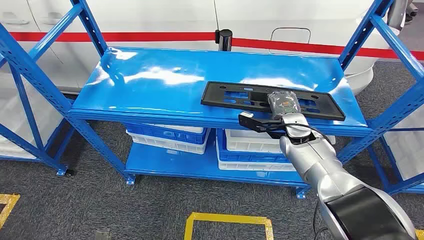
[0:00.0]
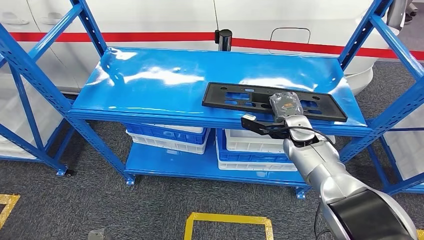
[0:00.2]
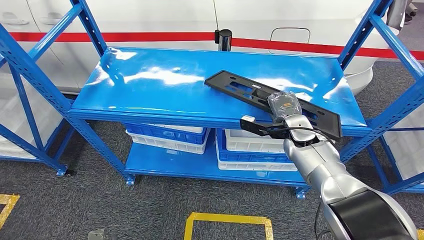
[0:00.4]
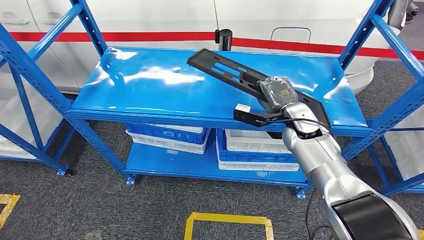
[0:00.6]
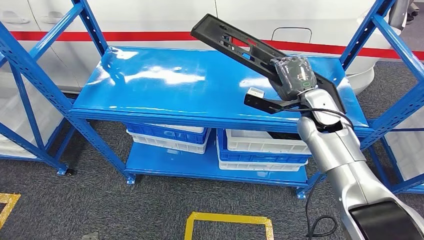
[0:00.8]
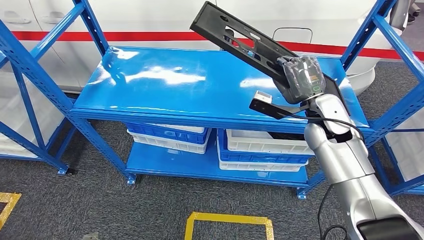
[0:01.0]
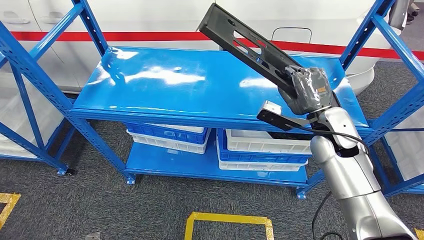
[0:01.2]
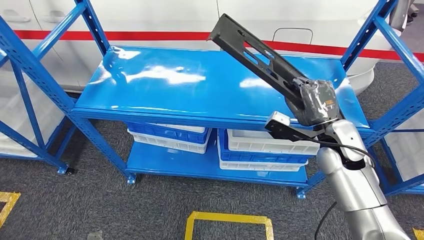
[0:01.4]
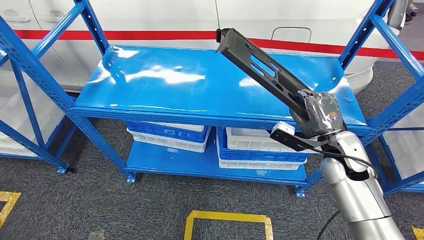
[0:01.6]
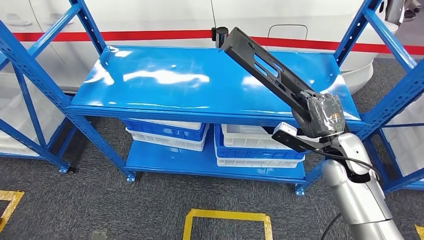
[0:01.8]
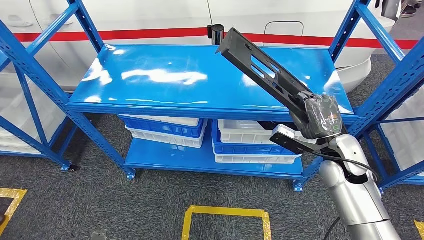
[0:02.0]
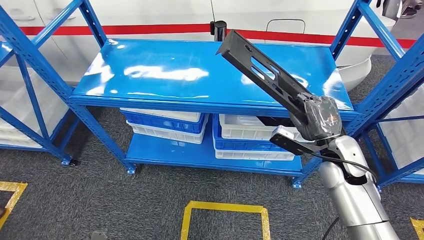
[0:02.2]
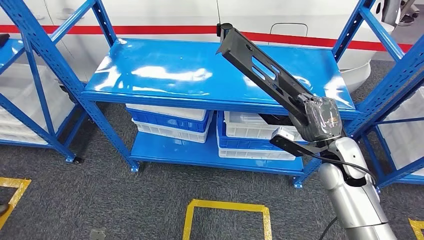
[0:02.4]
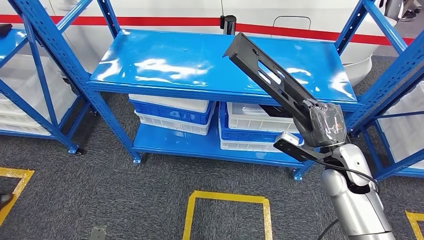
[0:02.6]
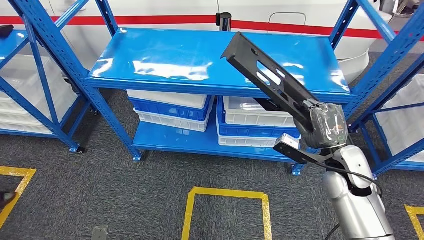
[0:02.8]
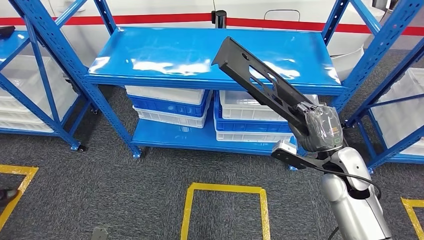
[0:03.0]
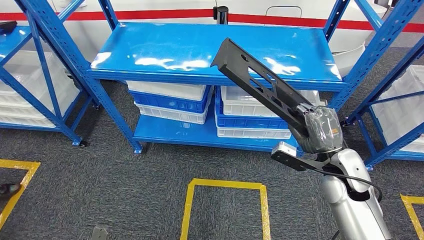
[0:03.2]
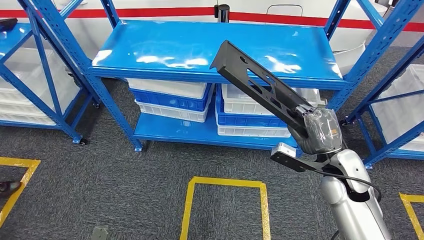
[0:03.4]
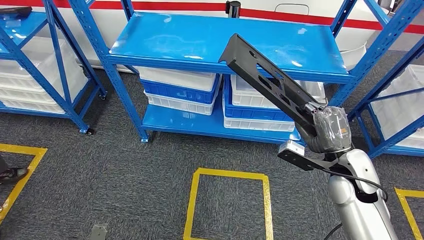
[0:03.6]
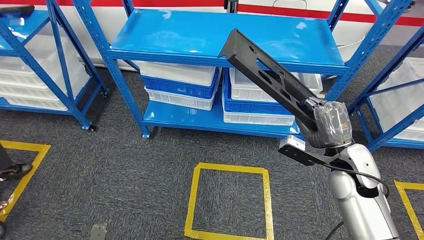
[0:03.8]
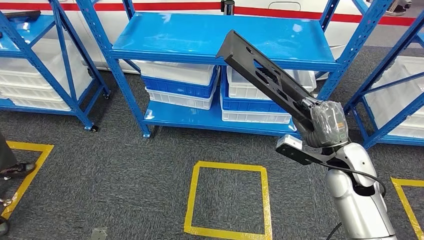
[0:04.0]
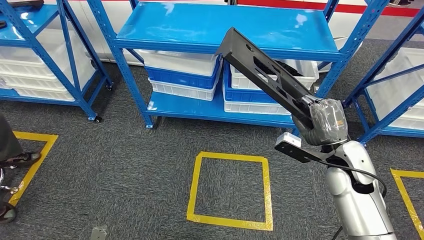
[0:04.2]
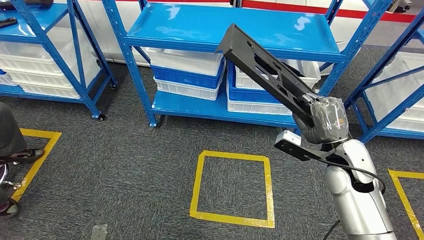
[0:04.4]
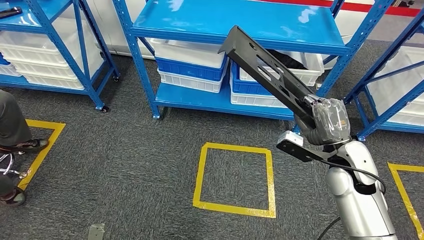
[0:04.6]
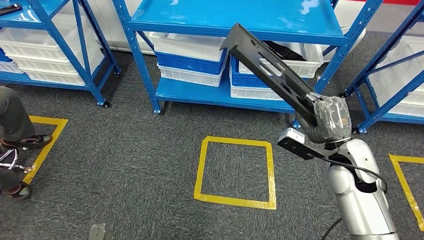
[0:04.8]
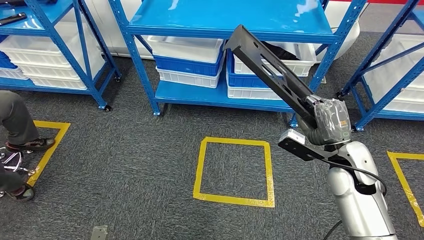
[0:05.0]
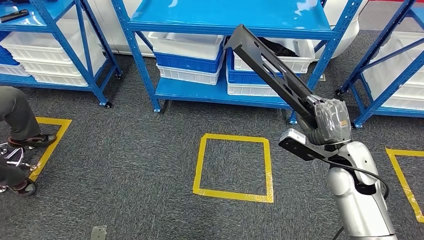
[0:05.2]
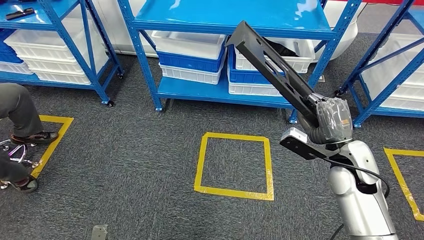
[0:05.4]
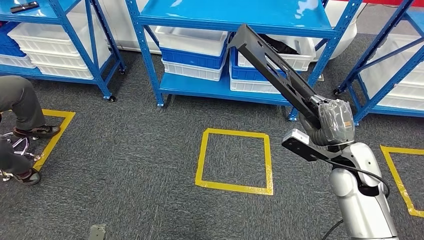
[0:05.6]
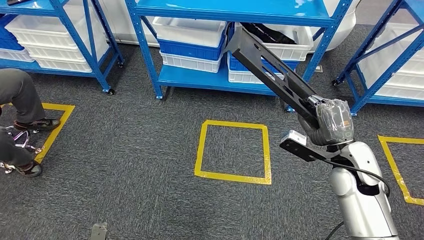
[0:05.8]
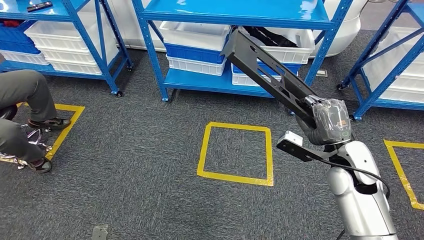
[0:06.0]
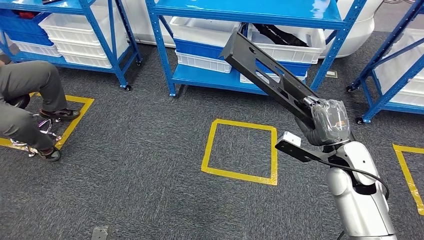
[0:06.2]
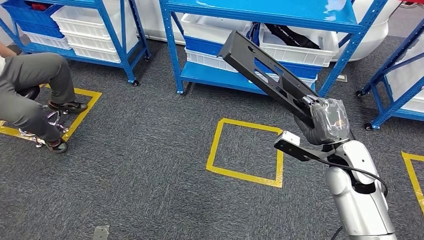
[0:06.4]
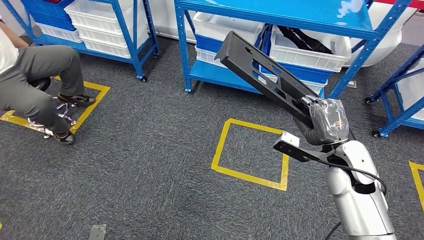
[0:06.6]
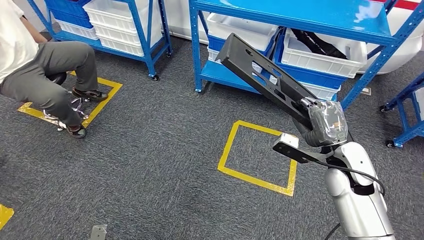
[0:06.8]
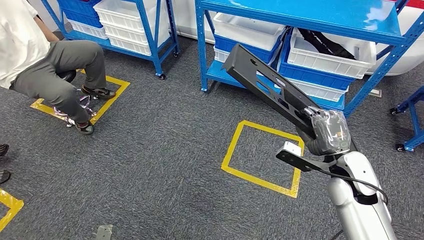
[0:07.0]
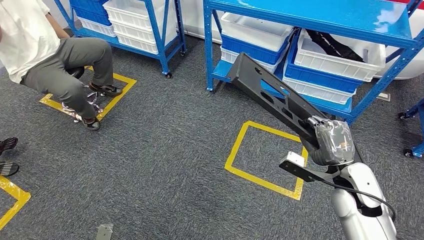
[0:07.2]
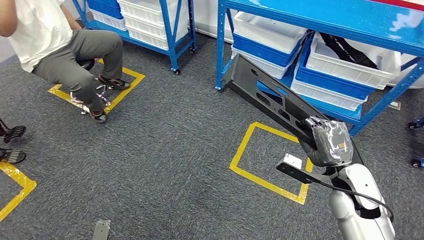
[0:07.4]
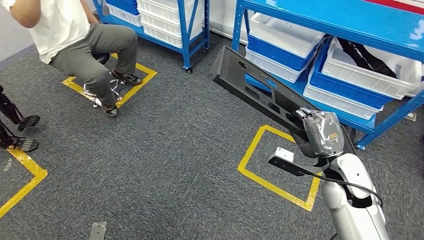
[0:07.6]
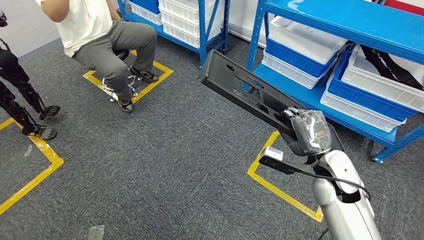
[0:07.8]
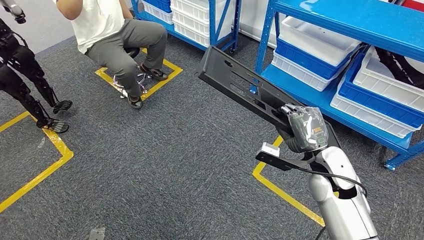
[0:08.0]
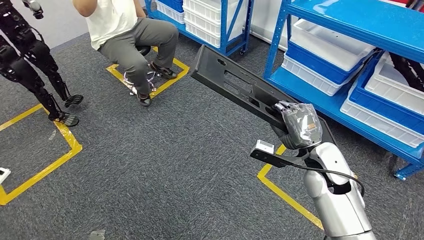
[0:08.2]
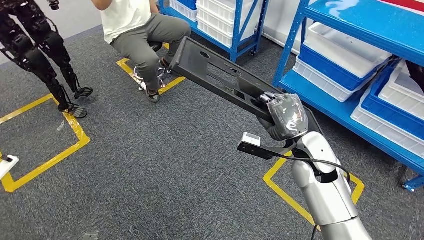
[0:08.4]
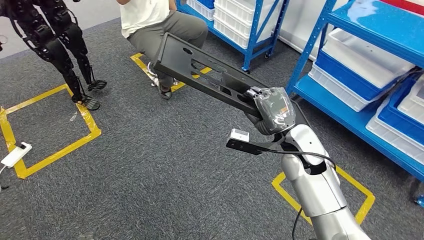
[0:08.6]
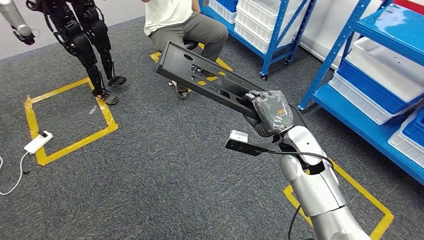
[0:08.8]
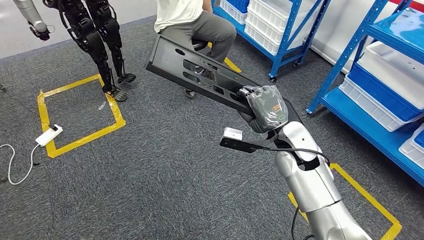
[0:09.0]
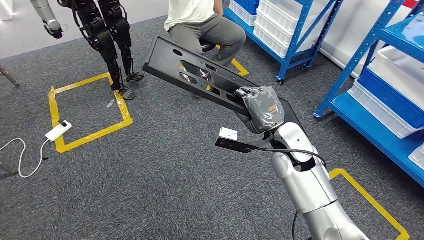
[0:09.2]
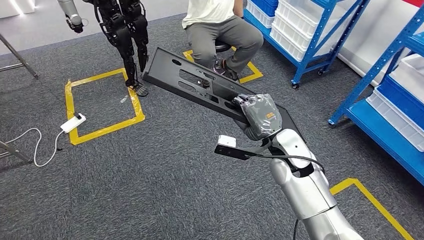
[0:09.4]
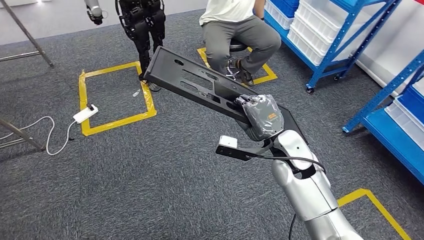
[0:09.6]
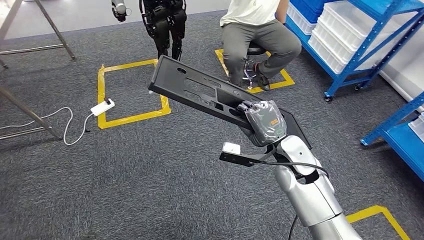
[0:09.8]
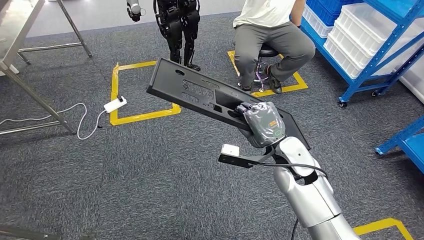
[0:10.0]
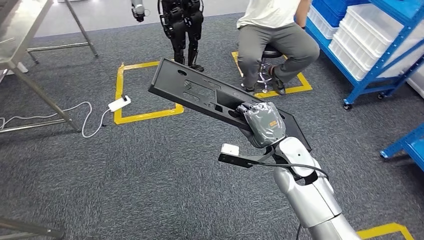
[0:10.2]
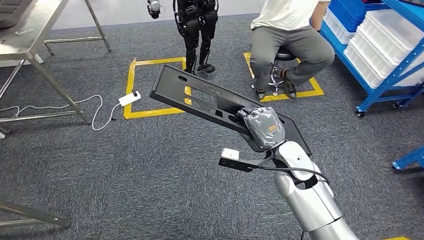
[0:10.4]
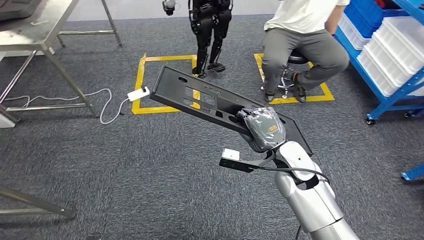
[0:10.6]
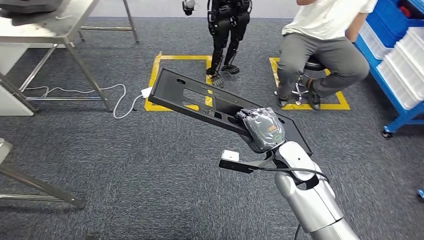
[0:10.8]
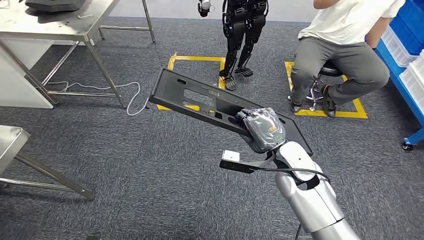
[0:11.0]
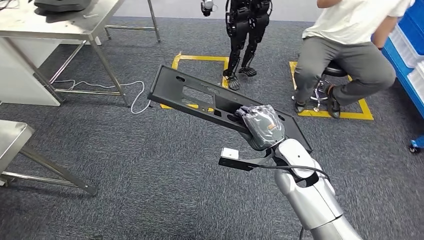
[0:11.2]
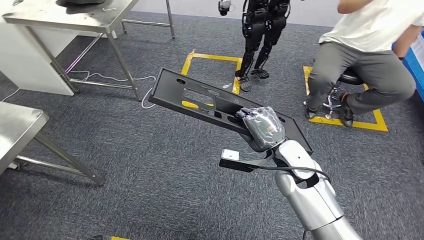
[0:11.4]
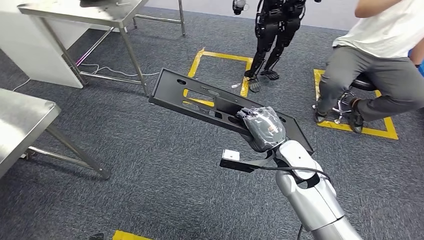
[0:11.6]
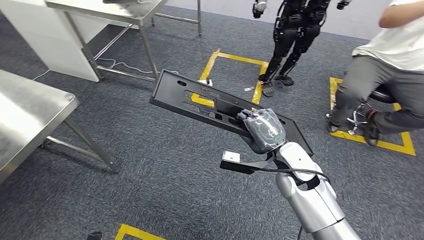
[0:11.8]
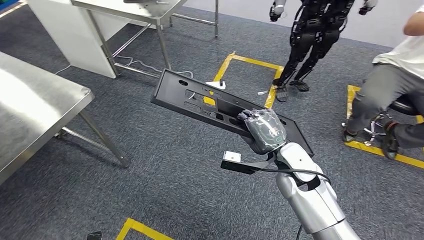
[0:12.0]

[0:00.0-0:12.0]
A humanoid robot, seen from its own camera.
Step, 0:00.0 to 0:05.2: Pick up the large material from the shelf.

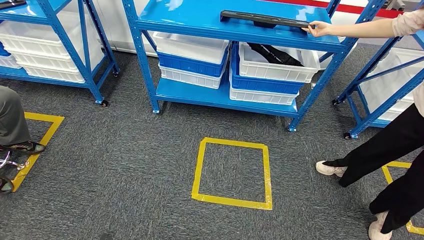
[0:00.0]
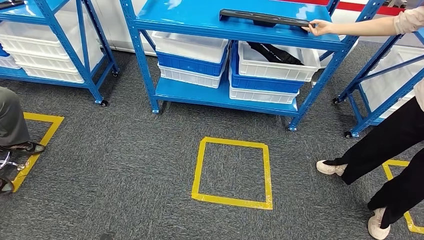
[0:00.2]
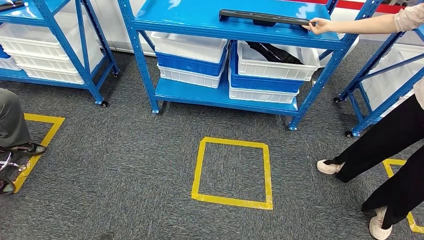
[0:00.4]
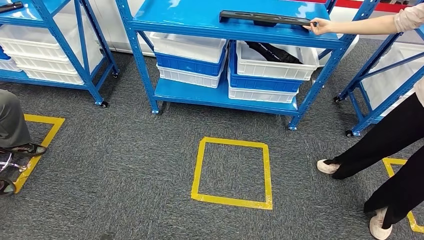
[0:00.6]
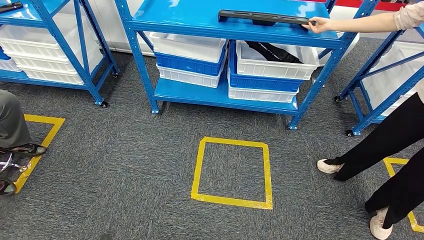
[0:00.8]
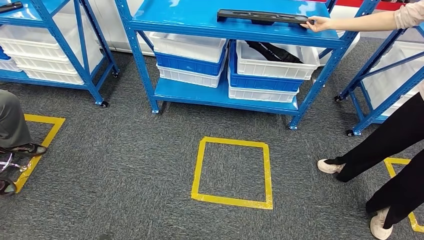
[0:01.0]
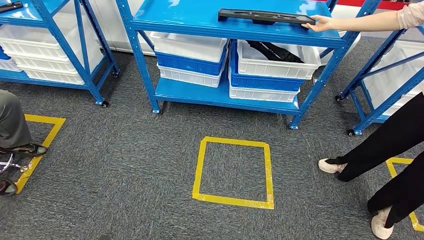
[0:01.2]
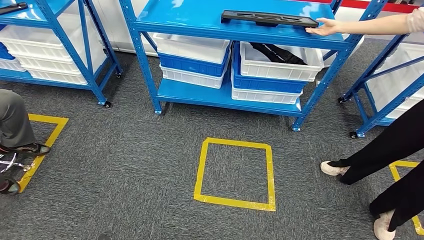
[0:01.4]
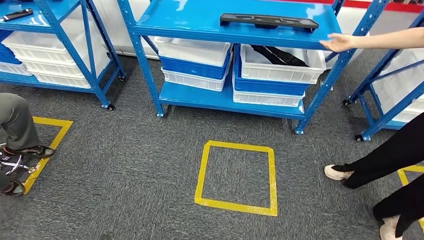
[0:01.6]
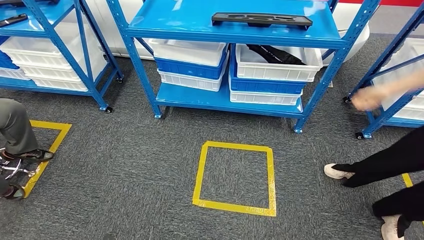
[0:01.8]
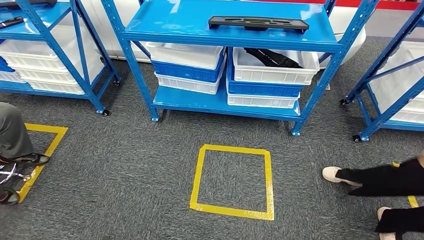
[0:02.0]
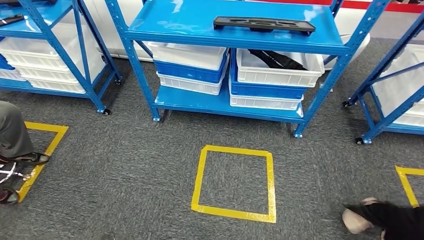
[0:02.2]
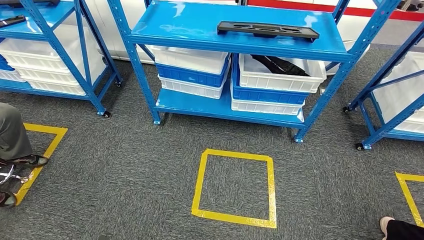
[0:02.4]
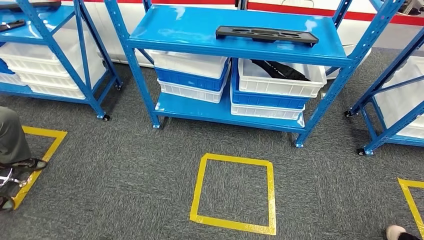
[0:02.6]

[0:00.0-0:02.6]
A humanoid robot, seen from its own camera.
Step, 0:00.0 to 0:02.6: Return to the initial position at the shelf.

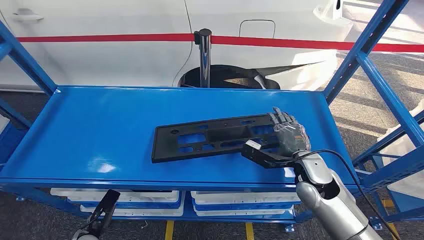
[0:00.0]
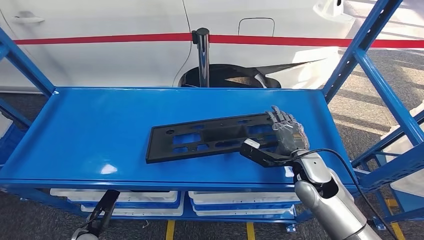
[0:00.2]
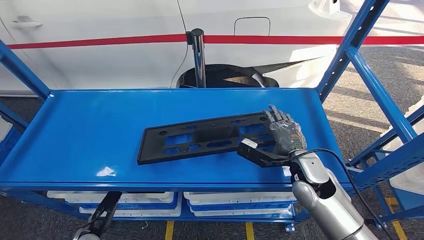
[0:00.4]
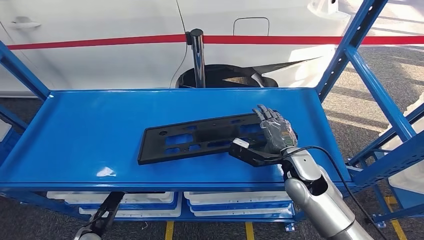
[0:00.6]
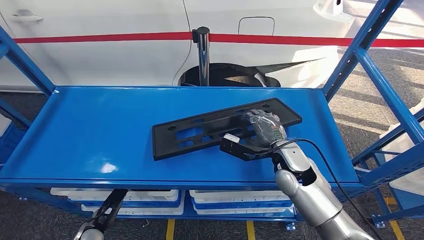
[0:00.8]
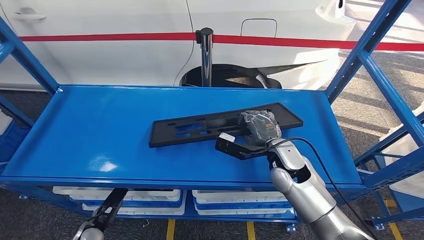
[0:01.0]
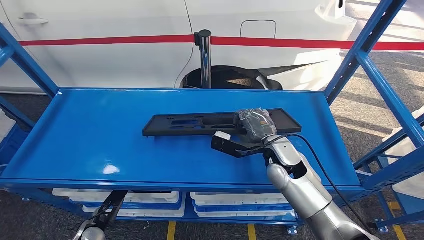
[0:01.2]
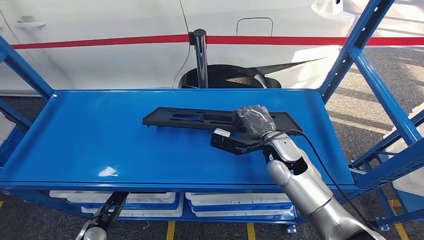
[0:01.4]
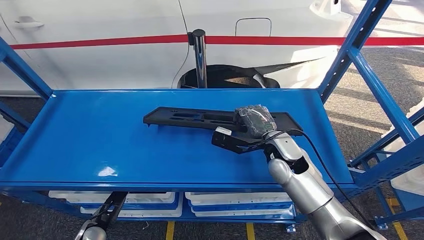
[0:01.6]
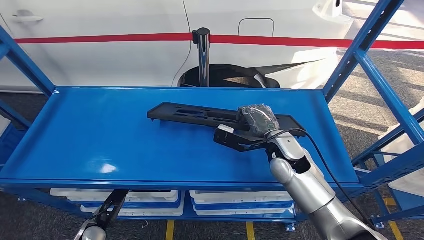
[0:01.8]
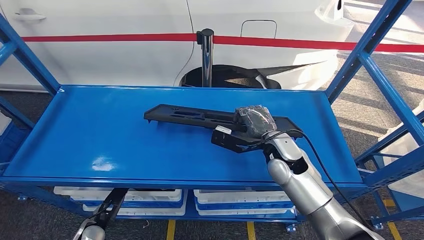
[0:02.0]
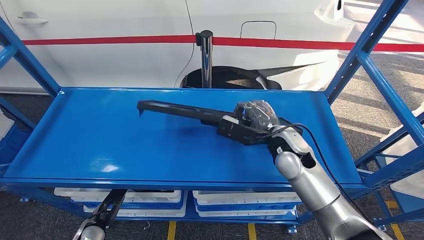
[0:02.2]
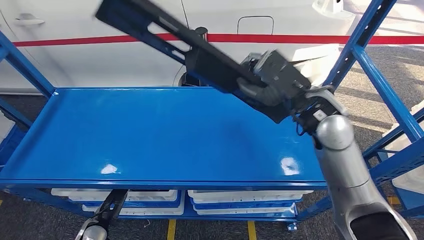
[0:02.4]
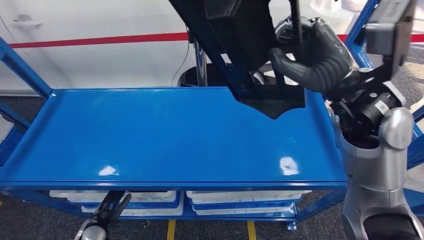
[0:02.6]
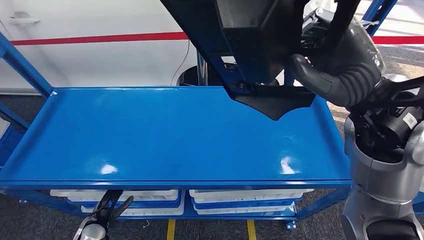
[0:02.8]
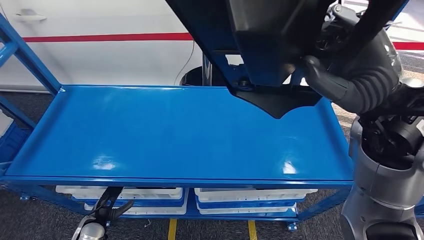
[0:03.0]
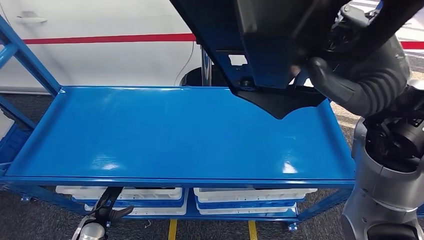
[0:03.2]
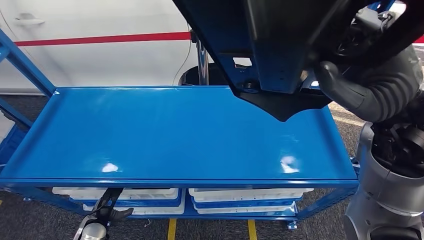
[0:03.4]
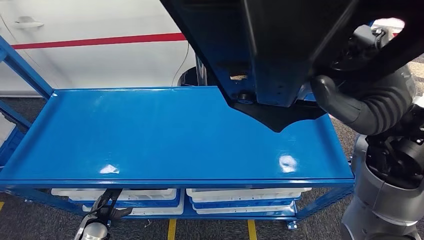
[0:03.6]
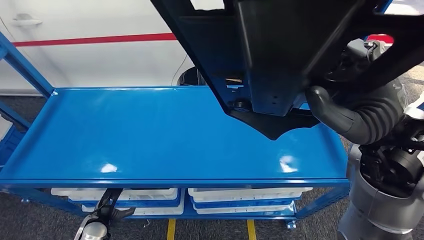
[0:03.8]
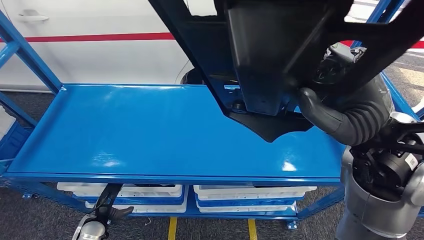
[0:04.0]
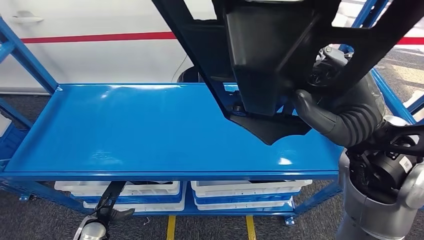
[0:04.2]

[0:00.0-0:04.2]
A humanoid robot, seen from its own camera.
Step, 0:00.0 to 0:04.0: Pick up the large material from the shelf.
